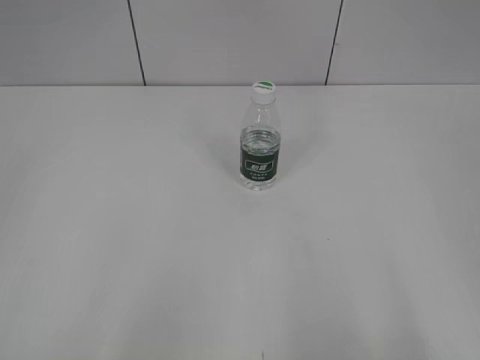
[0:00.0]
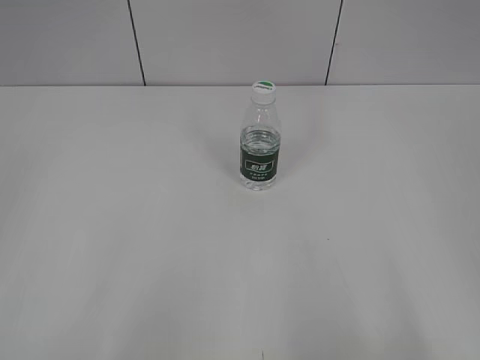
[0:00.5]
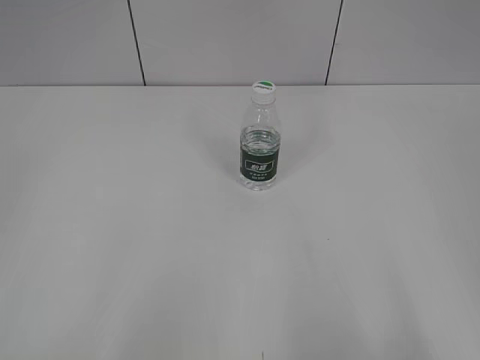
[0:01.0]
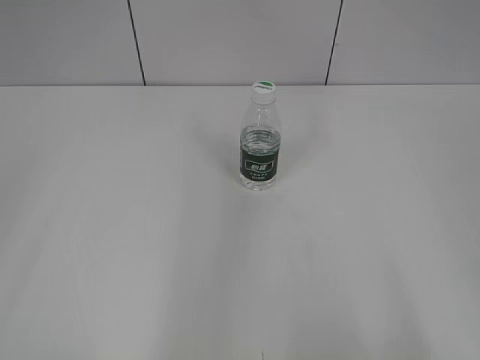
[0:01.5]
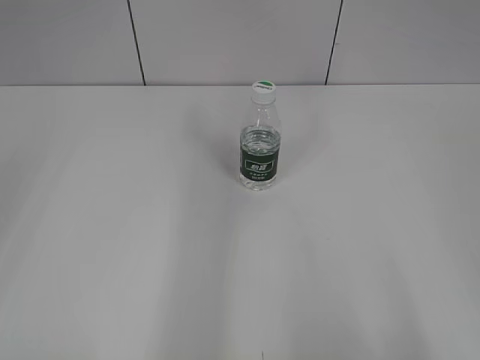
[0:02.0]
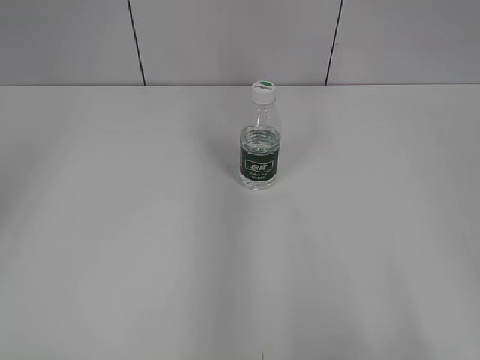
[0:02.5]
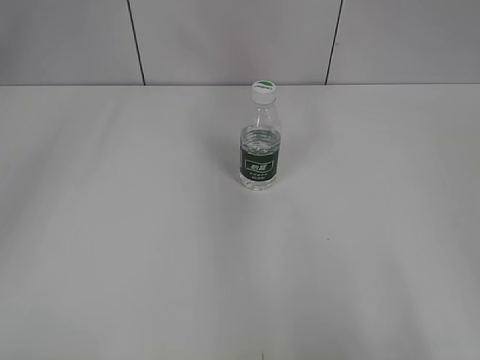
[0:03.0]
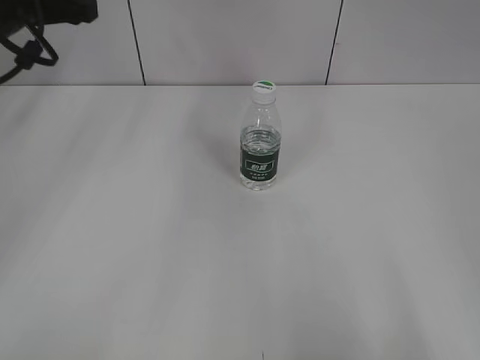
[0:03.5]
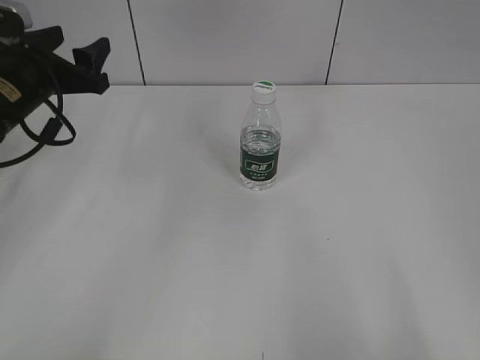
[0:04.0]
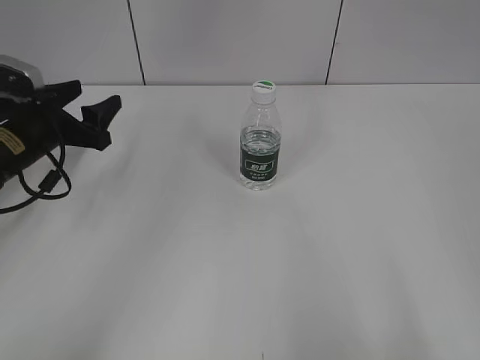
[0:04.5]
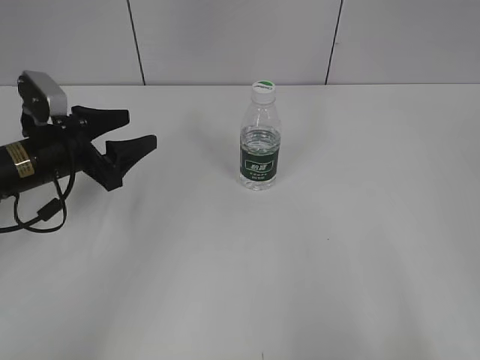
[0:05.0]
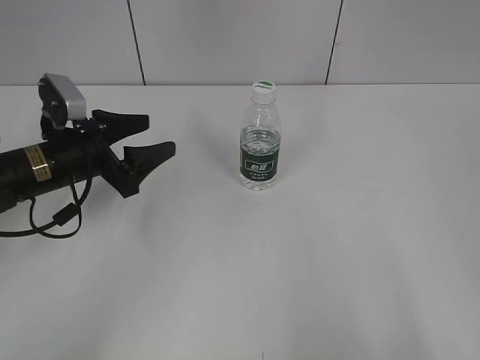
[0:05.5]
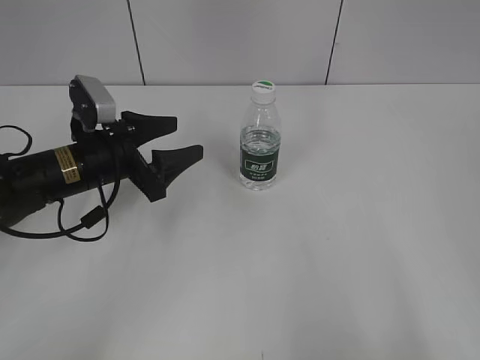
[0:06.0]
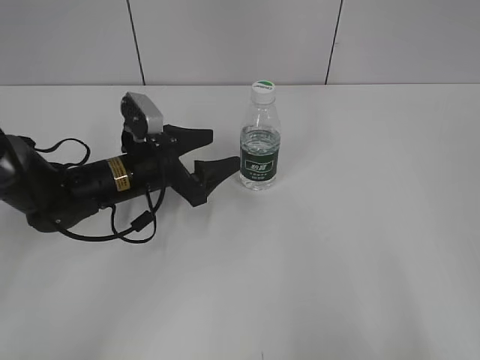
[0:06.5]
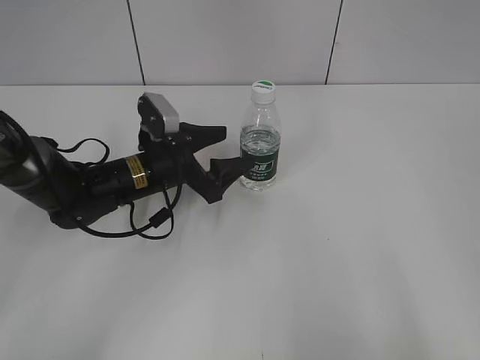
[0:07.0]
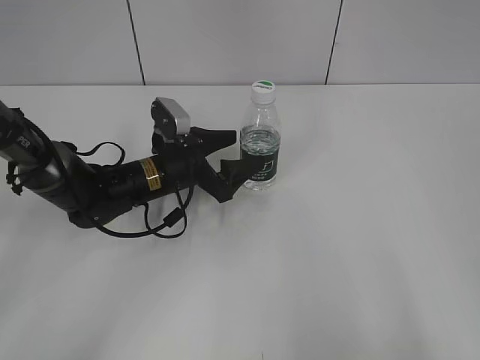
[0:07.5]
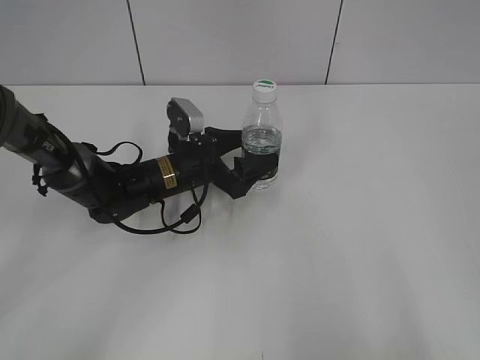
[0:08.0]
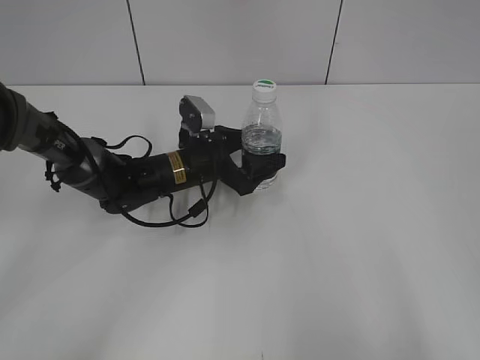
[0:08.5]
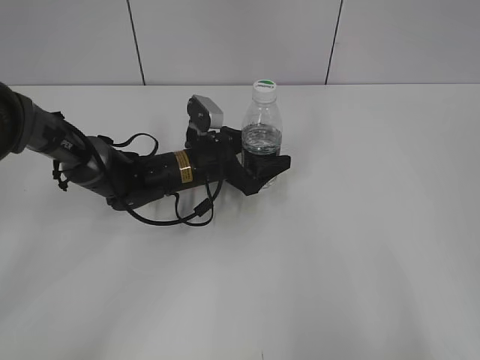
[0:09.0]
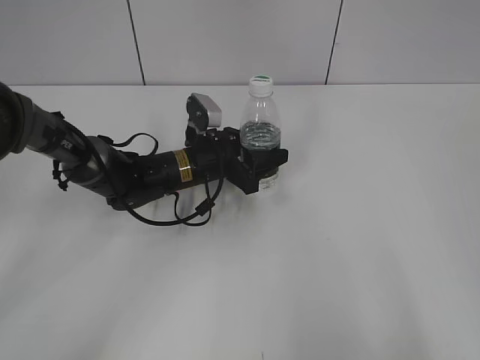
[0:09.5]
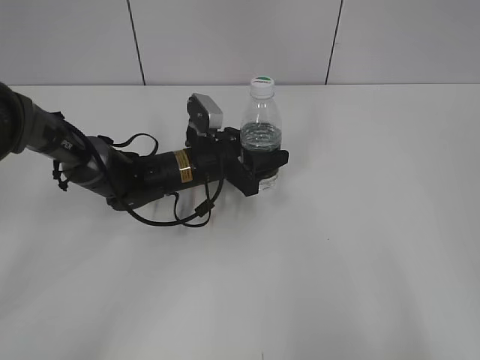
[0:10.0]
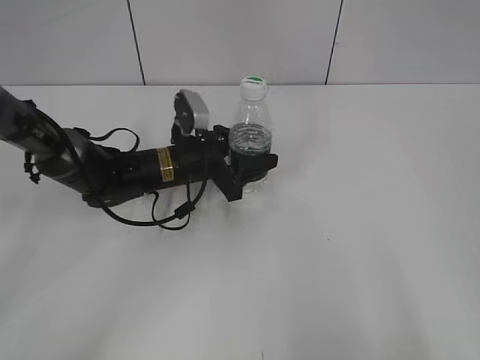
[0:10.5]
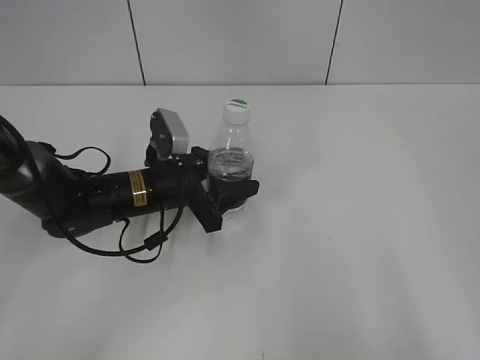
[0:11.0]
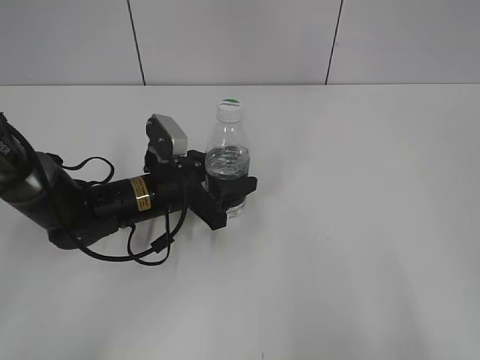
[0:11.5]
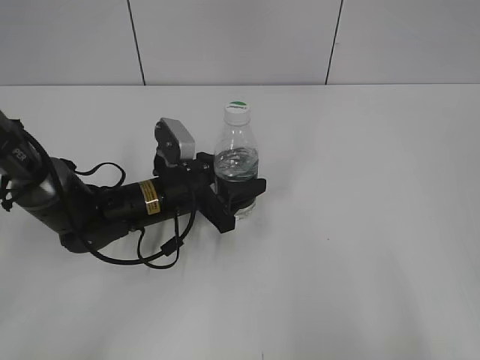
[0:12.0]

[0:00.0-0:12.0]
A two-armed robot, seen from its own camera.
Step, 0:00.0 to 0:09.5: Grasp the bottle and move it to the center of the table with the left gripper.
0:02.0 to 0:04.0: The left gripper heads forward and downward, covering about 30 cm.
0:04.0 to 0:06.0: The left gripper travels downward and to the right by some 10 cm.
0:06.0 to 0:08.0: The left gripper moves to the right, downward and forward, approximately 15 cm, and opens up.
0:08.0 to 0:10.0: The left gripper closes its fingers.
0:10.0 to 0:12.0: The left gripper goes some 5 cm backward.

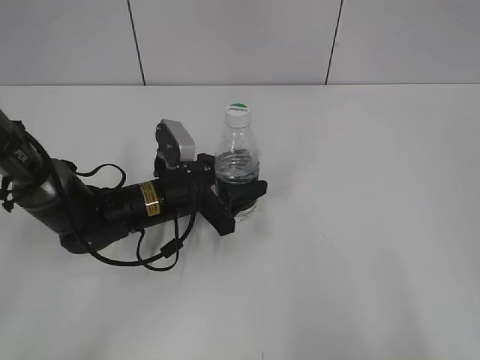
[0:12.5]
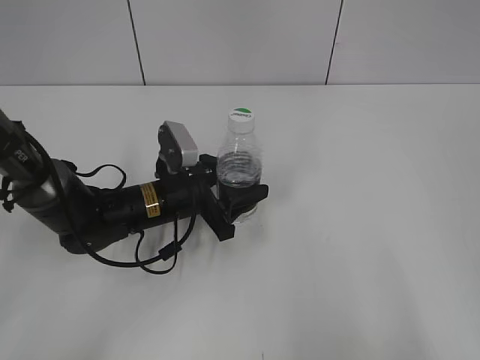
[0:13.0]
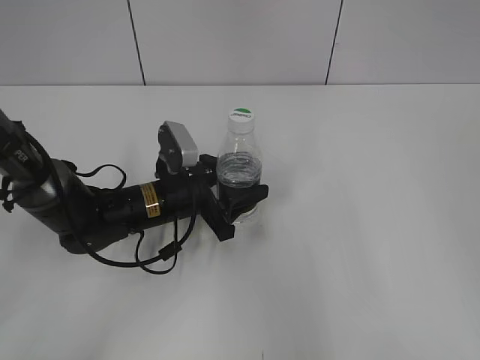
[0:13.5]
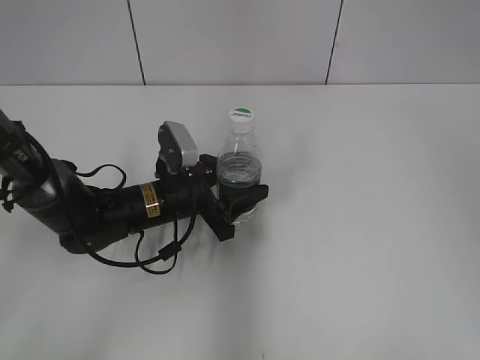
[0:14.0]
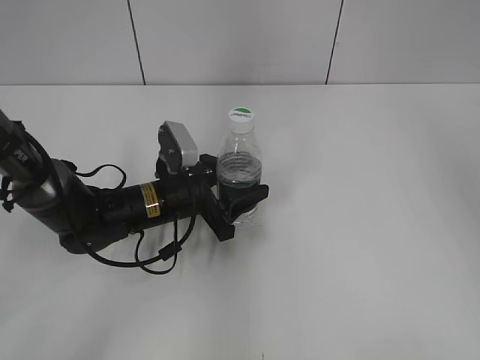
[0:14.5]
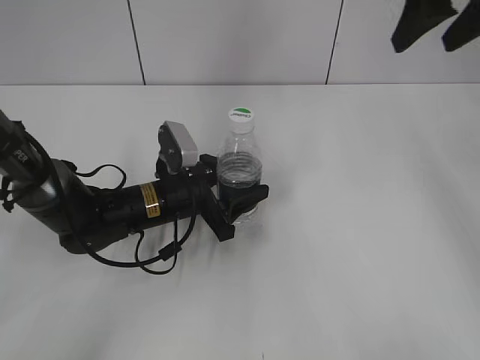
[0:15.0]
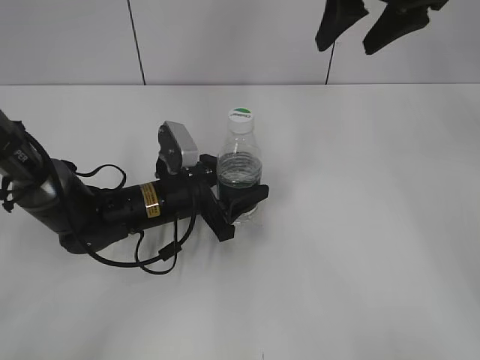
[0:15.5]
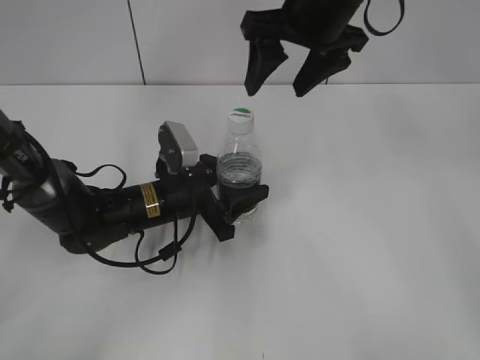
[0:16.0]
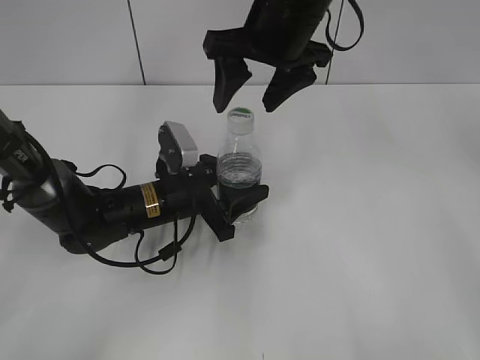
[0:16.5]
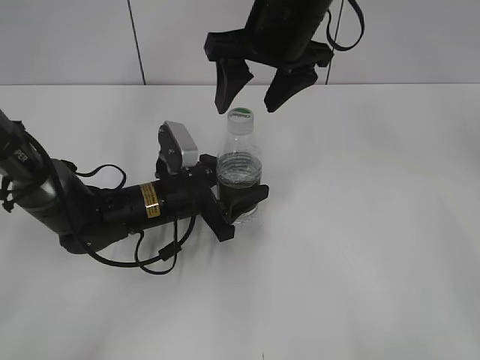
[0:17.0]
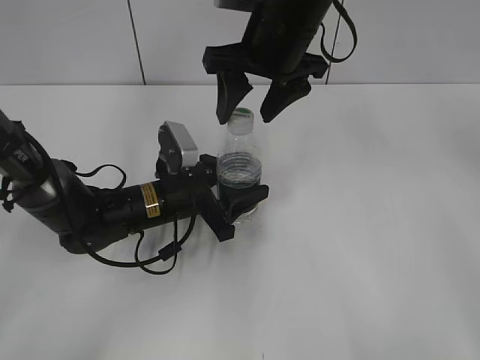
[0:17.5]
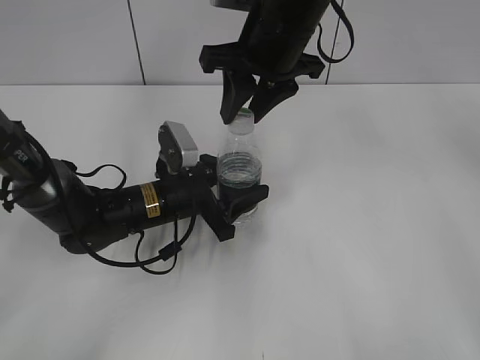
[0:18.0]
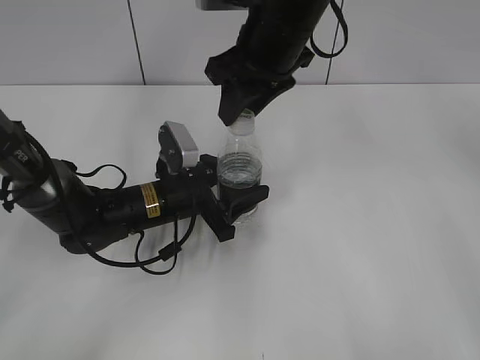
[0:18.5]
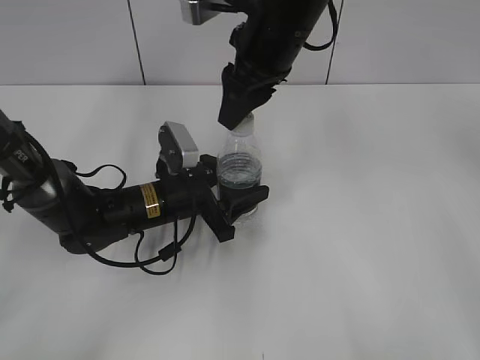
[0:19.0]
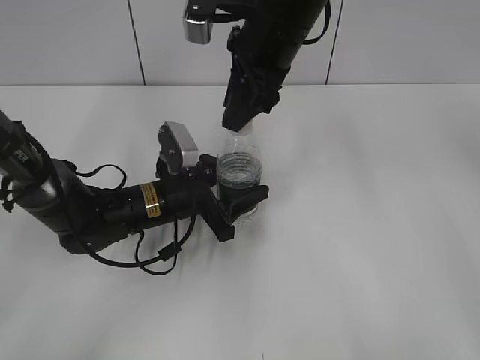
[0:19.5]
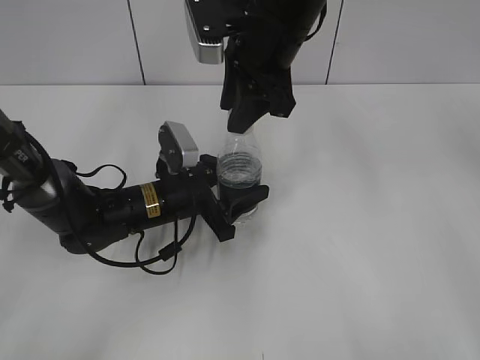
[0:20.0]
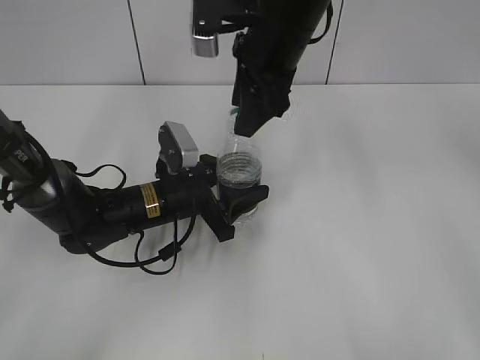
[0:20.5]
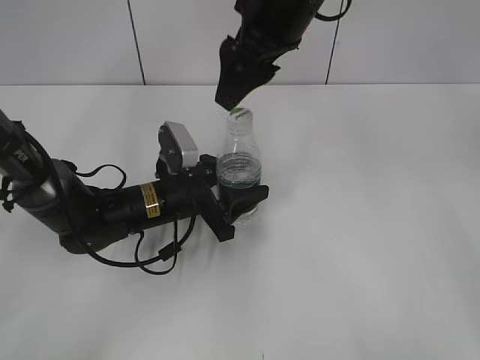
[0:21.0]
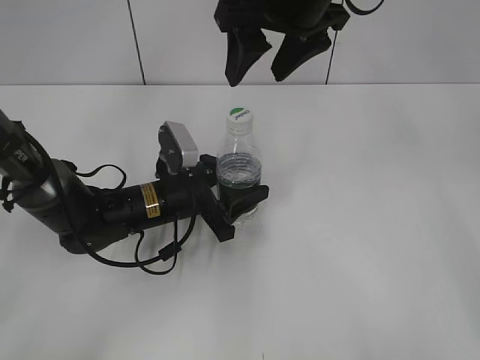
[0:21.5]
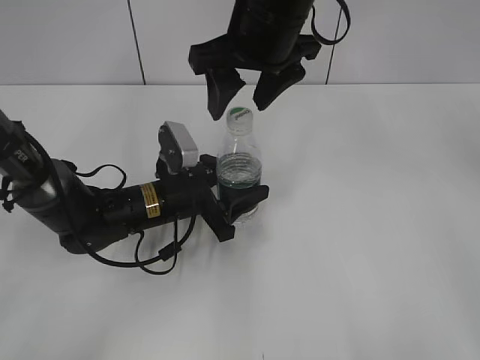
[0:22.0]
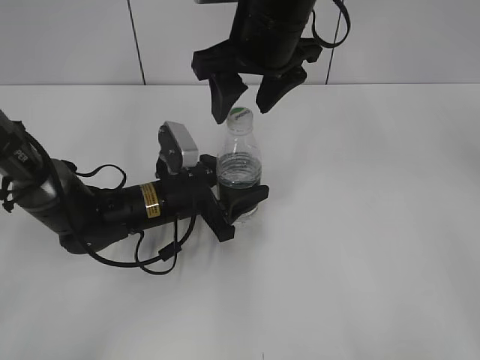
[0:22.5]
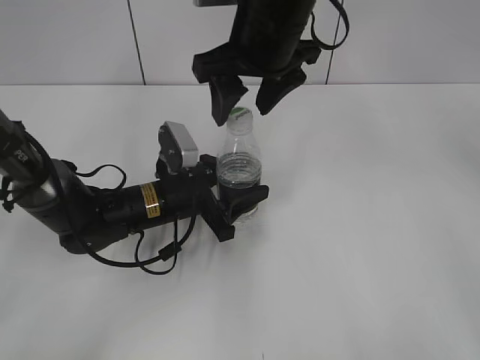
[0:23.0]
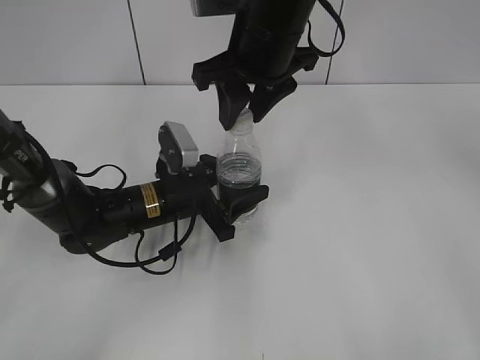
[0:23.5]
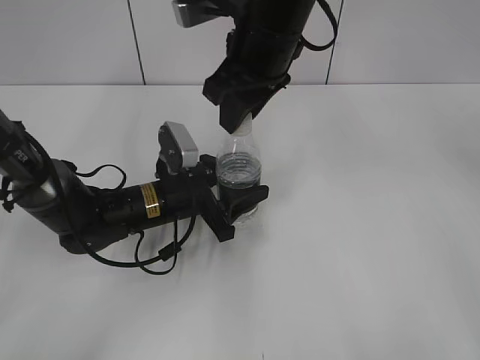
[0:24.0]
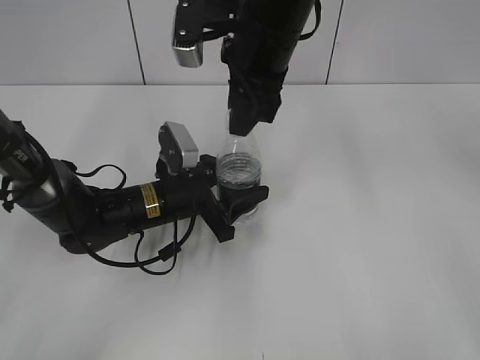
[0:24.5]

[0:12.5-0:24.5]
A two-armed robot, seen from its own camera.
0:12.5 to 0:14.5: The right gripper travels forward and upward by approximately 30 cm.
0:14.5 to 0:16.5: The right gripper is displaced to the left, downward and forward by about 30 cm.
0:16.5 to 0:18.5: The right gripper closes its fingers.
0:20.5 to 0:22.5: The right gripper opens.
0:22.5 to 0:24.5: The right gripper closes its fingers.

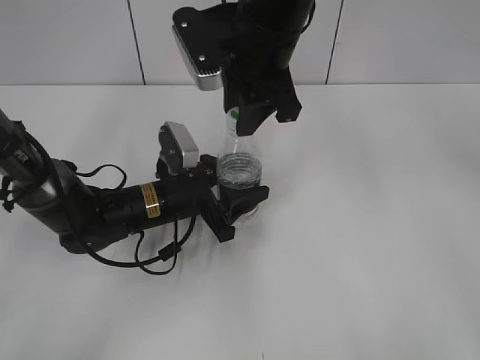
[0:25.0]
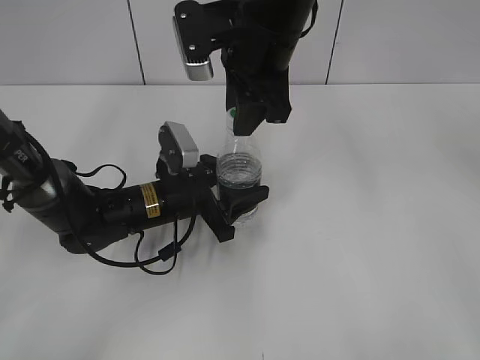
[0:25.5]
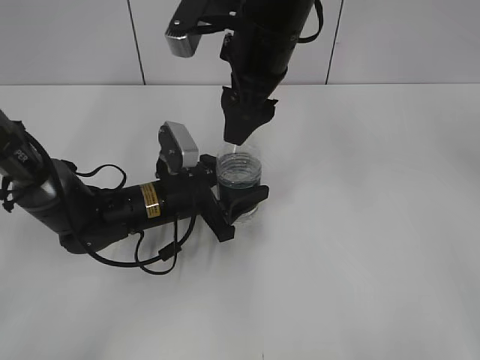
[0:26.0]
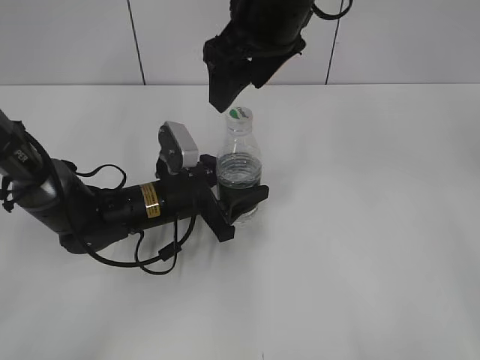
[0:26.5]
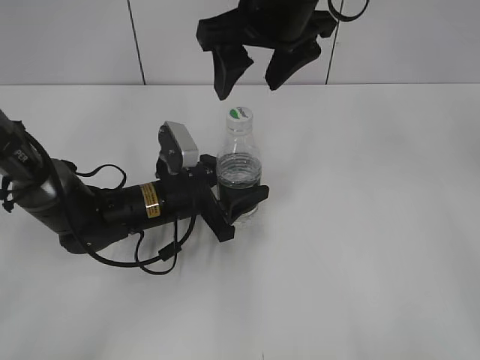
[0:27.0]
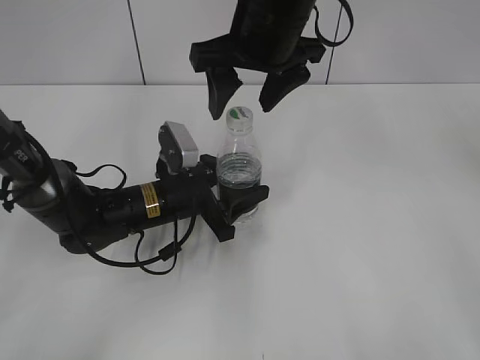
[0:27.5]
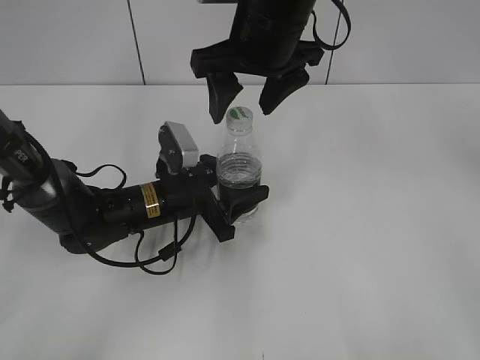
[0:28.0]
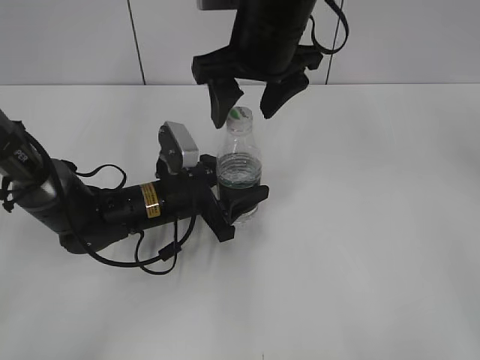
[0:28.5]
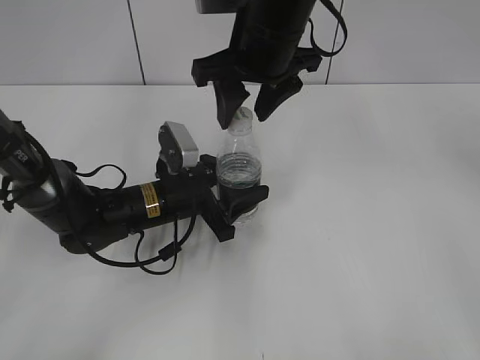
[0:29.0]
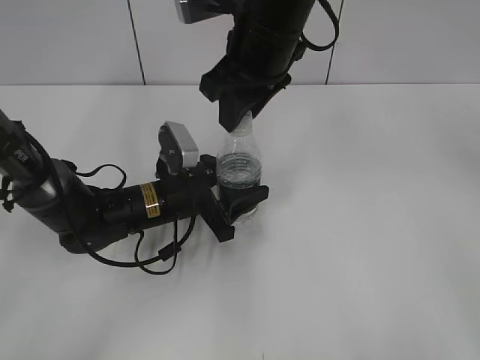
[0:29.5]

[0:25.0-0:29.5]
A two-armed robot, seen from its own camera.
0:25.0 to 0:27.0: The right gripper opens its fingers.
0:27.0 to 0:29.5: The right gripper closes its fingers.
